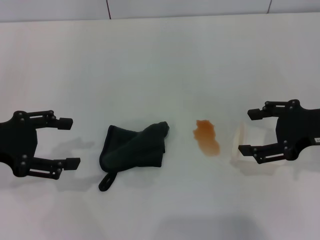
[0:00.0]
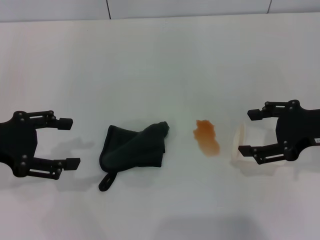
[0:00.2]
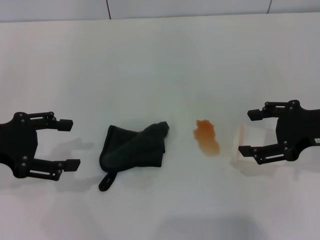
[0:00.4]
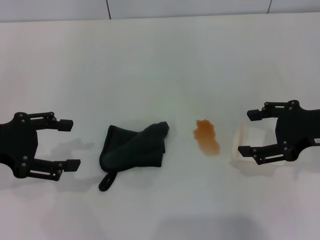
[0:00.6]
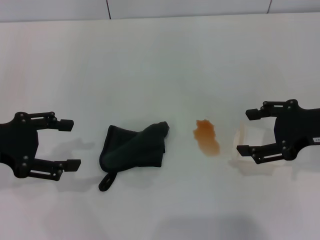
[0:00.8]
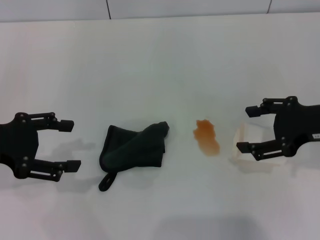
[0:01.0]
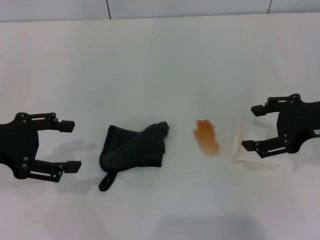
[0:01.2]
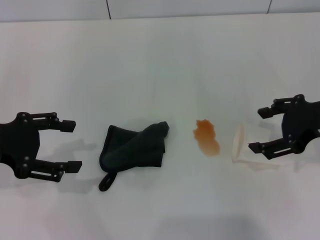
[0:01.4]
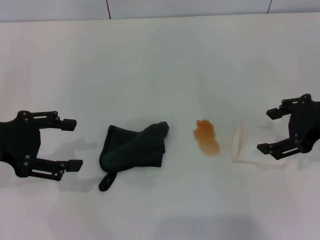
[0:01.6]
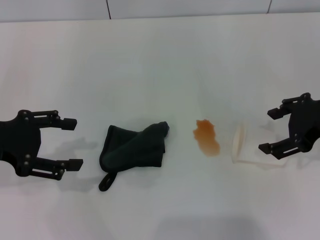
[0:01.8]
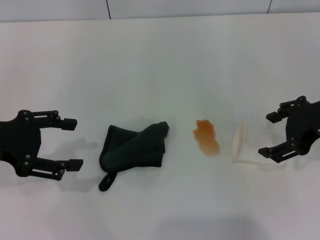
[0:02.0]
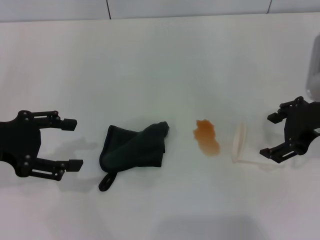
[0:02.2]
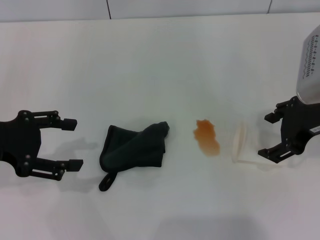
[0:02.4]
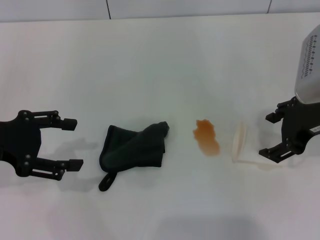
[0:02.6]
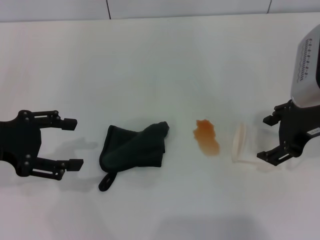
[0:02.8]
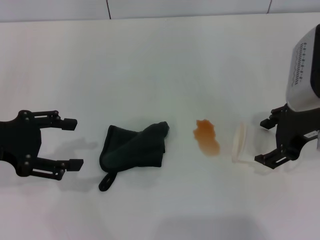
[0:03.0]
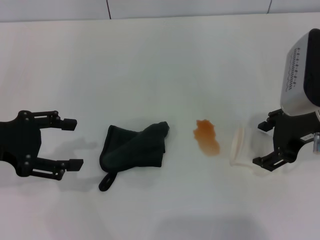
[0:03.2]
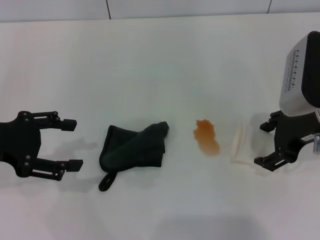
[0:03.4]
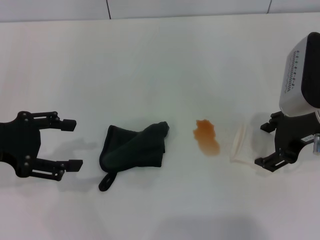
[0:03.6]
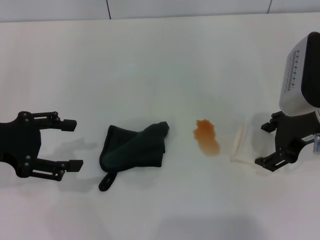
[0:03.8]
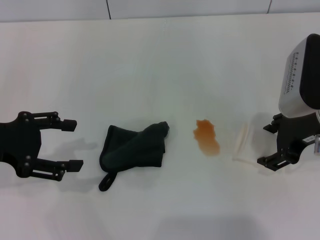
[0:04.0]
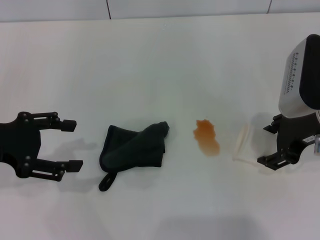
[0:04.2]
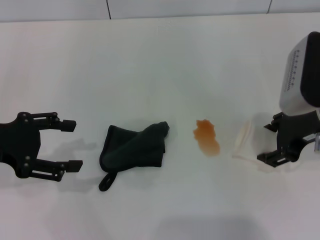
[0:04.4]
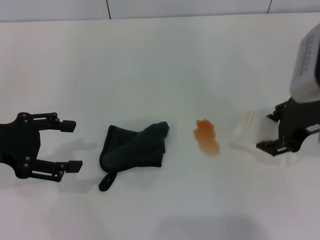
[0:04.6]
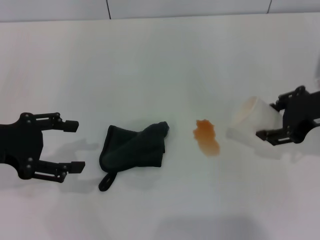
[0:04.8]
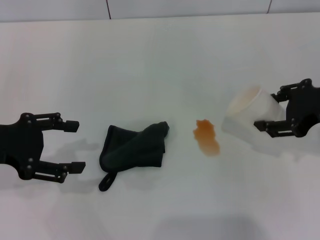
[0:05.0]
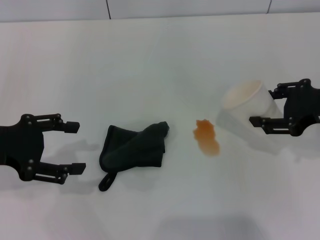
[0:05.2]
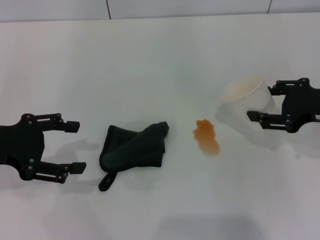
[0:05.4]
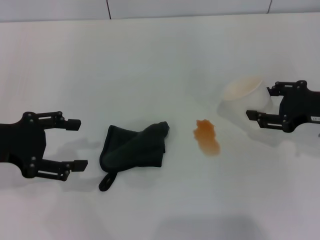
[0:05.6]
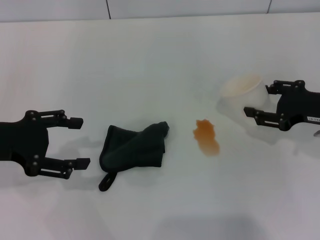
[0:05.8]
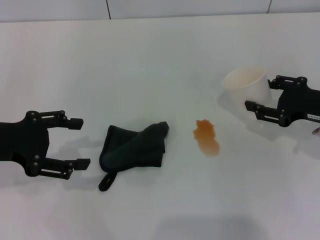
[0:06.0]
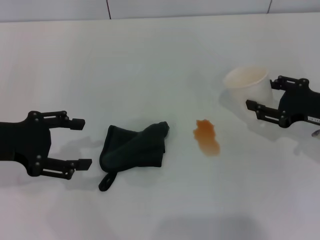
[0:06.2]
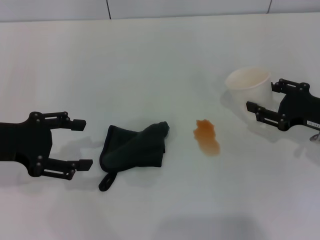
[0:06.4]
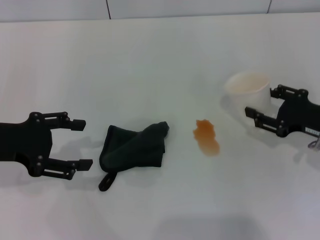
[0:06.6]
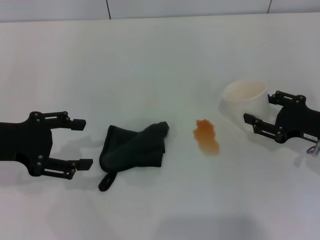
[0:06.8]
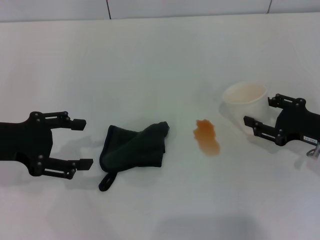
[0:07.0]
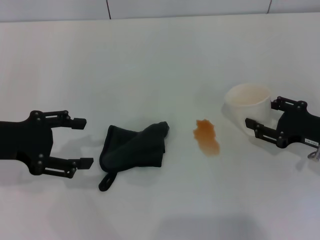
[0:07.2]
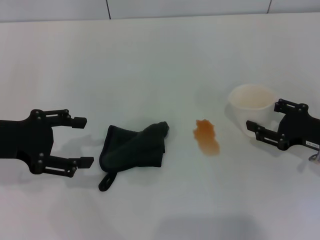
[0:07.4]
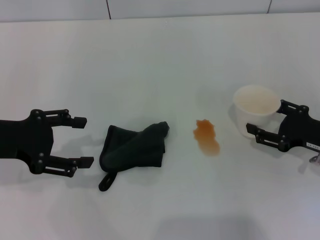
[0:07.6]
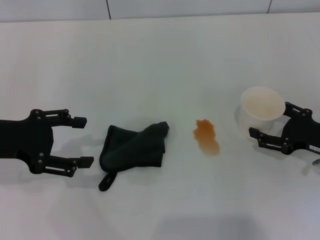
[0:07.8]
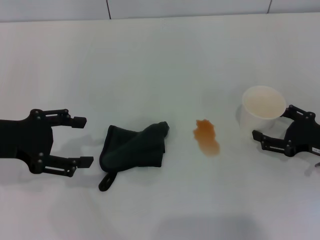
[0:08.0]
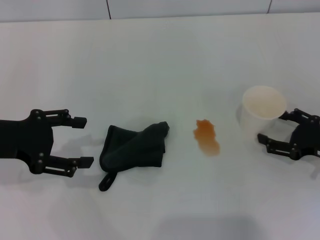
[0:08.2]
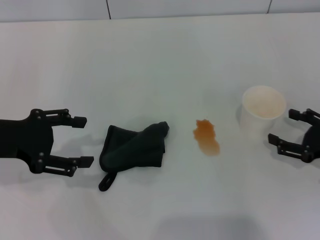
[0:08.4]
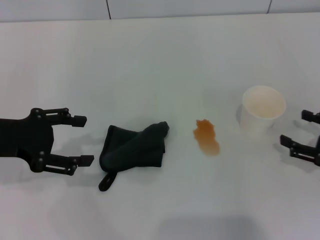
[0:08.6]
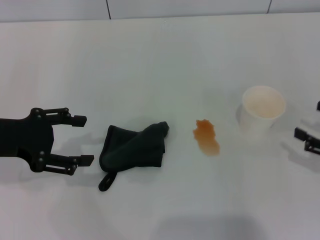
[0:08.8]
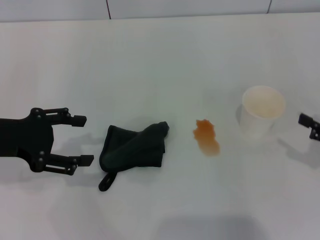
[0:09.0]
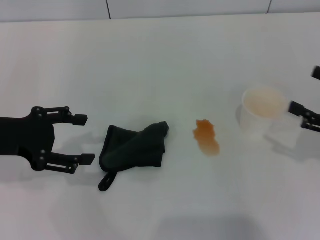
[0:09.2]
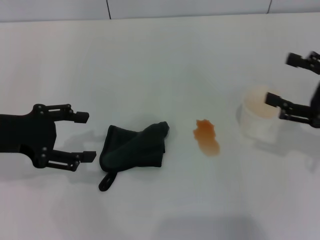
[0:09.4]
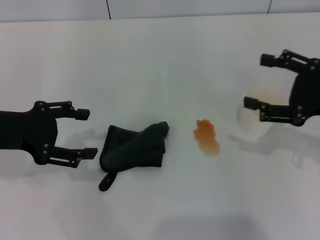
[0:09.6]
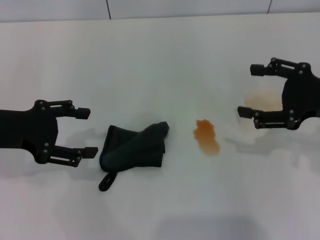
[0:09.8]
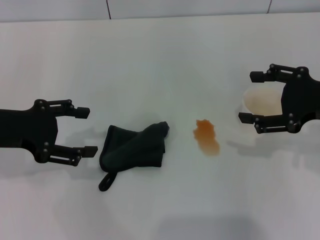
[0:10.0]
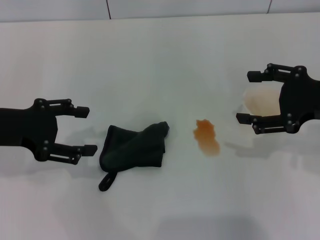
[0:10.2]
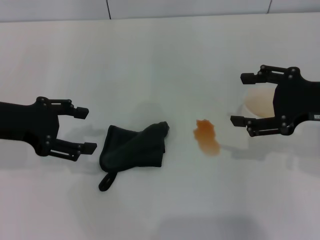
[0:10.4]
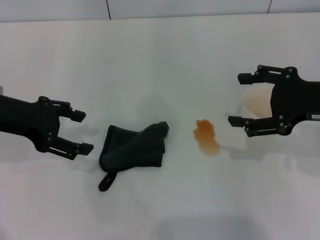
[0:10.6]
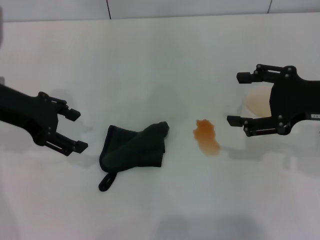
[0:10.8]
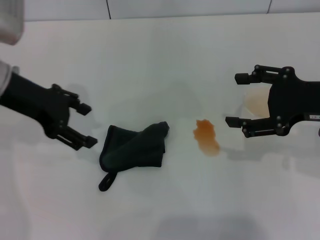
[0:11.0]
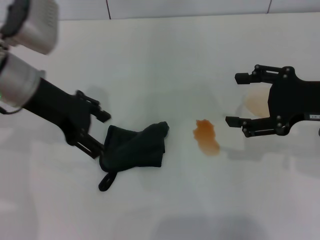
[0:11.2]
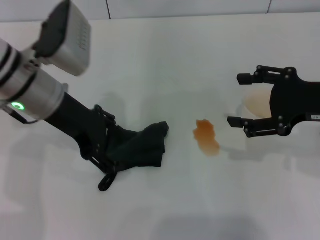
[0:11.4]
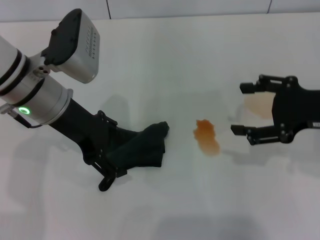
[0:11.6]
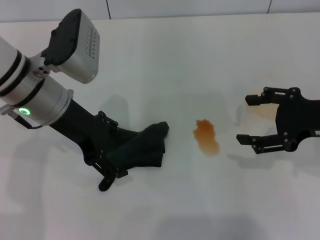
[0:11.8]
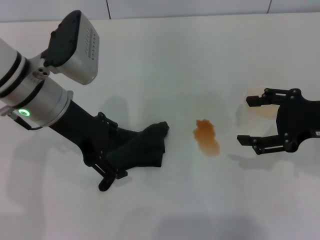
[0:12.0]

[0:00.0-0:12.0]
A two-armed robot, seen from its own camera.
Step, 0:00.0 to 0:04.0: Grasp the paper cup with the right gripper.
Step, 0:04.4 to 0:08.4: Stand the paper cup upright with the right gripper.
0:00.0 to 0:01.6: The grippers move only a little.
0:01.6 to 0:03.0: The grippers move only a little.
0:03.0 to 0:04.4: The right gripper closes its fingers.
0:04.4 to 0:06.0: The right gripper heads to the right and downward, covering some 10 cm.
0:06.0 to 0:07.6: The right gripper shifts some 5 cm downward.
0:07.6 to 0:09.0: The right gripper shifts about 10 cm backward, to the right and upward, and opens.
0:09.0 to 0:10.4: The right gripper heads to the left, upward and forward, covering some 15 cm.
0:10.4 to 0:12.0: The left gripper heads to the right, covering roughly 10 cm.

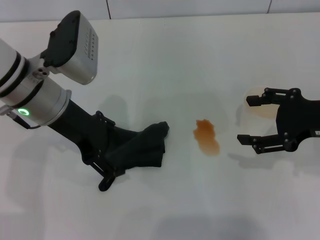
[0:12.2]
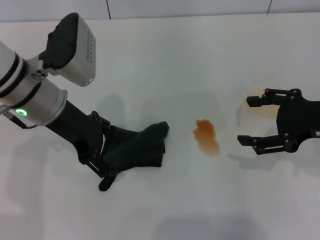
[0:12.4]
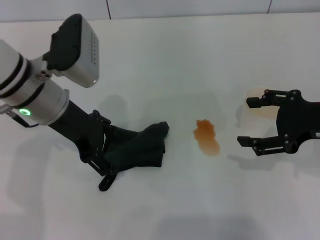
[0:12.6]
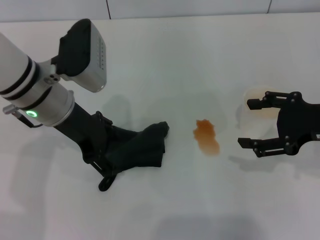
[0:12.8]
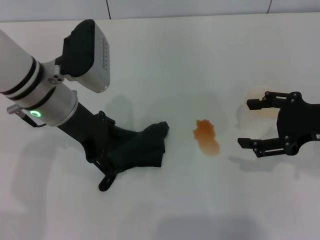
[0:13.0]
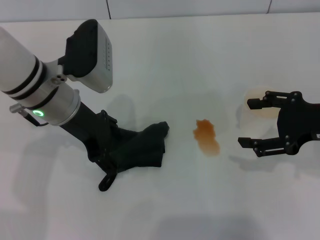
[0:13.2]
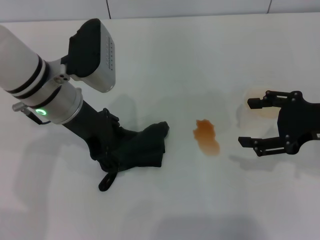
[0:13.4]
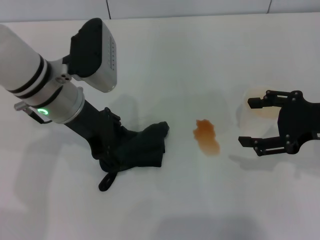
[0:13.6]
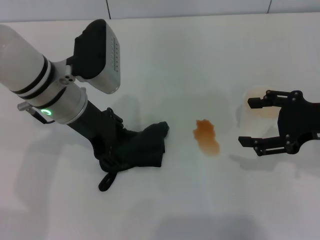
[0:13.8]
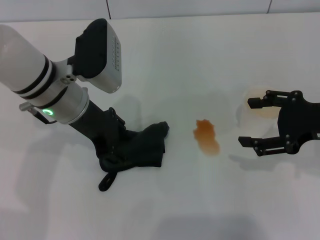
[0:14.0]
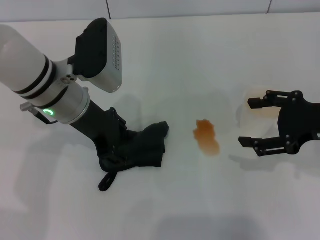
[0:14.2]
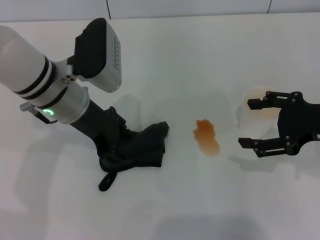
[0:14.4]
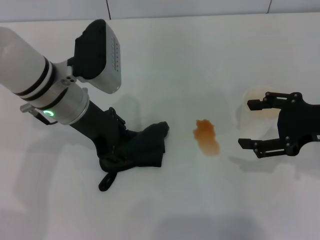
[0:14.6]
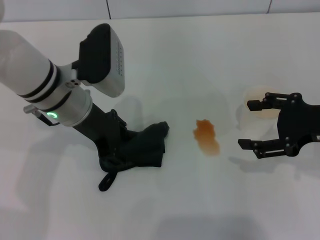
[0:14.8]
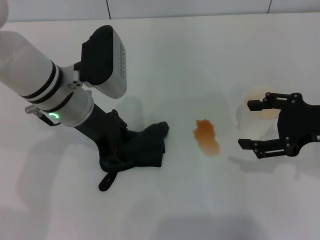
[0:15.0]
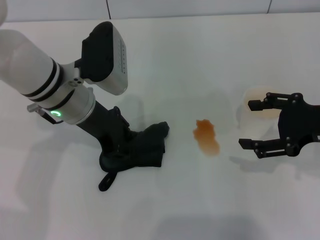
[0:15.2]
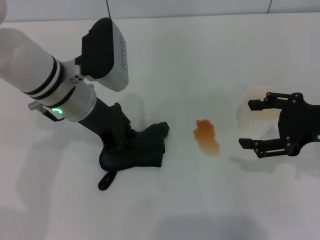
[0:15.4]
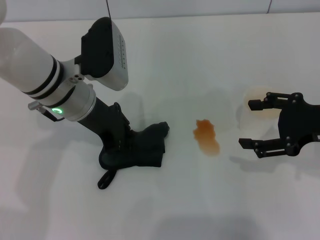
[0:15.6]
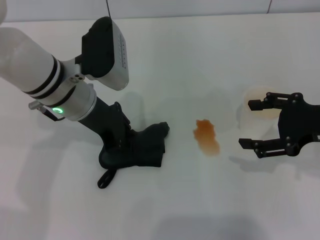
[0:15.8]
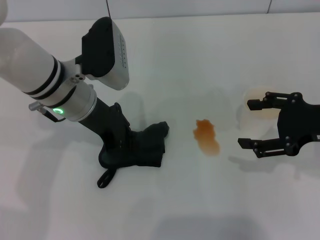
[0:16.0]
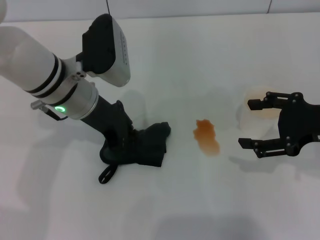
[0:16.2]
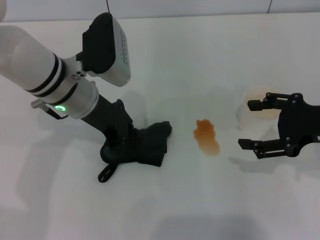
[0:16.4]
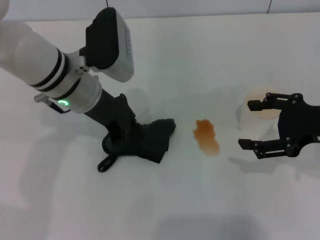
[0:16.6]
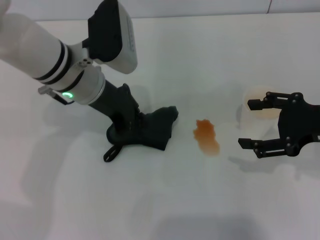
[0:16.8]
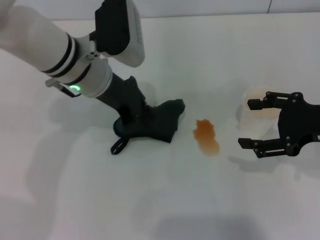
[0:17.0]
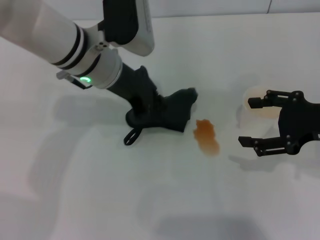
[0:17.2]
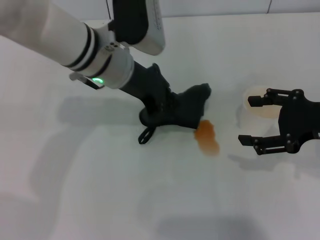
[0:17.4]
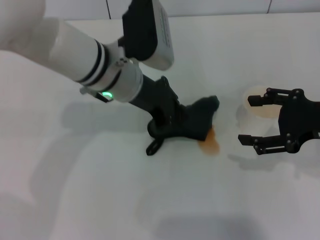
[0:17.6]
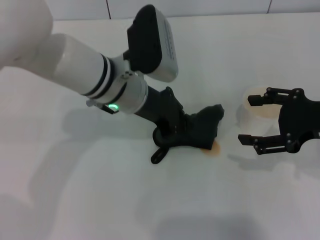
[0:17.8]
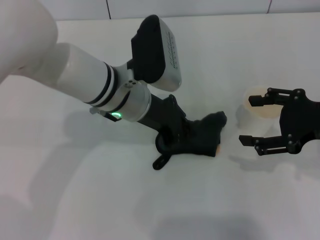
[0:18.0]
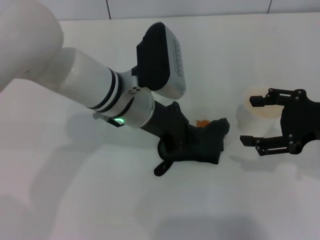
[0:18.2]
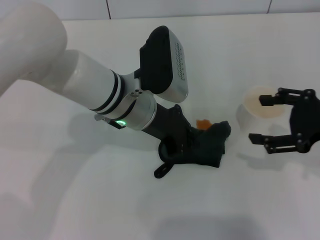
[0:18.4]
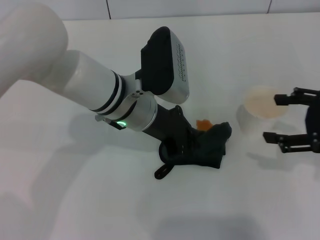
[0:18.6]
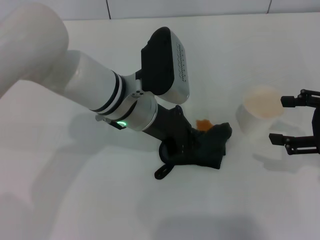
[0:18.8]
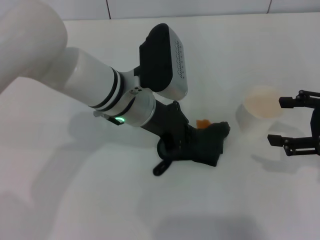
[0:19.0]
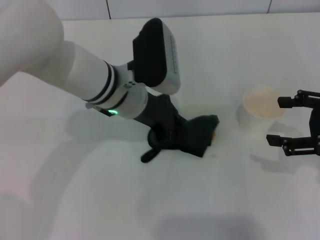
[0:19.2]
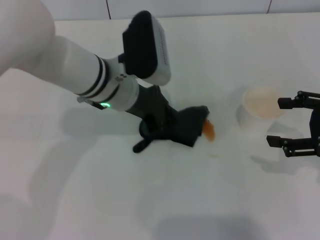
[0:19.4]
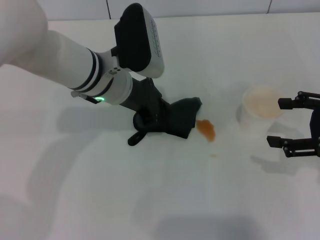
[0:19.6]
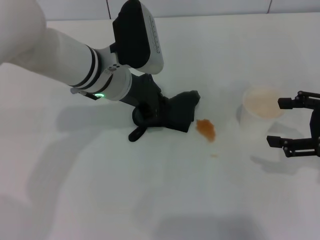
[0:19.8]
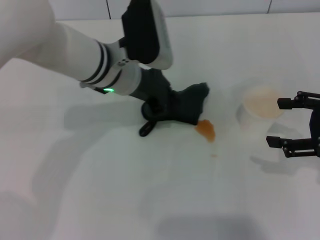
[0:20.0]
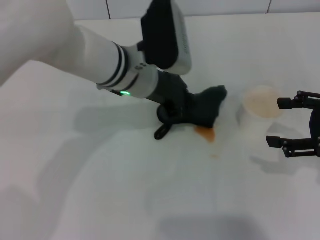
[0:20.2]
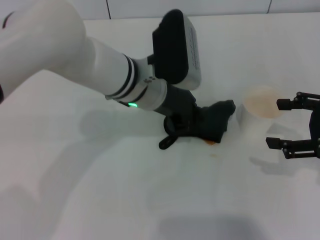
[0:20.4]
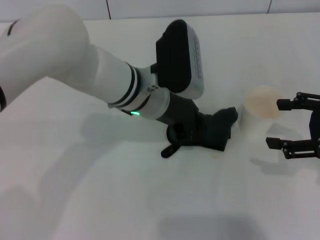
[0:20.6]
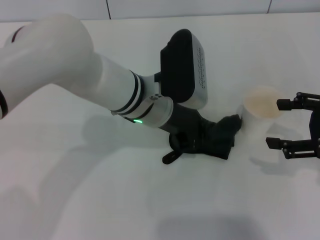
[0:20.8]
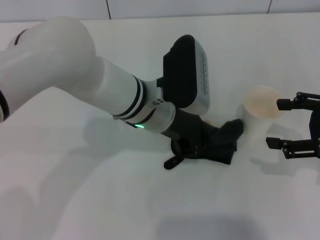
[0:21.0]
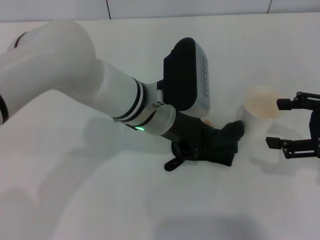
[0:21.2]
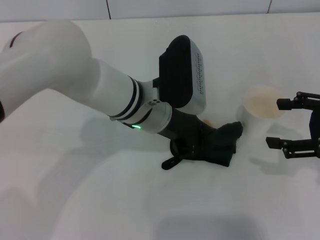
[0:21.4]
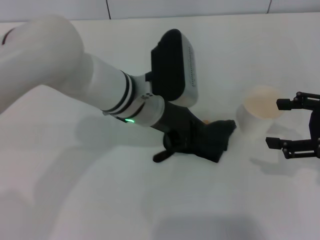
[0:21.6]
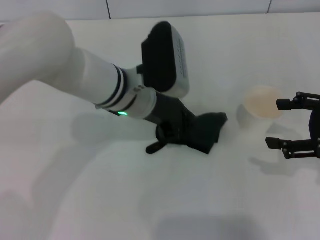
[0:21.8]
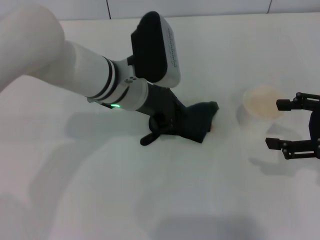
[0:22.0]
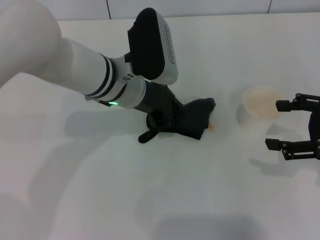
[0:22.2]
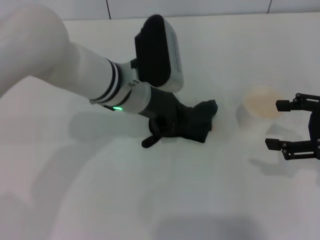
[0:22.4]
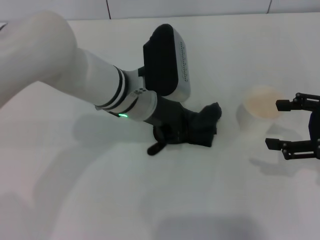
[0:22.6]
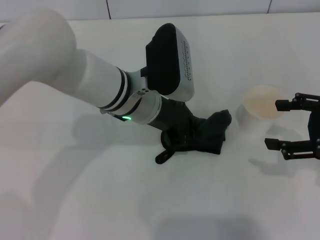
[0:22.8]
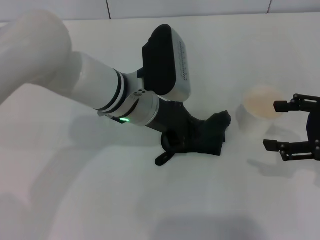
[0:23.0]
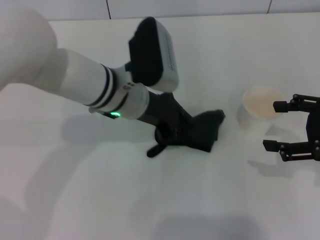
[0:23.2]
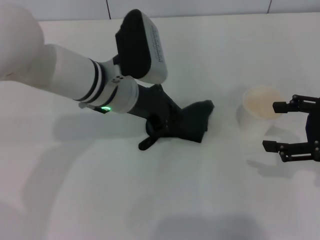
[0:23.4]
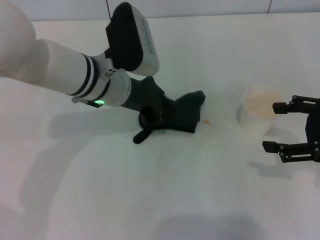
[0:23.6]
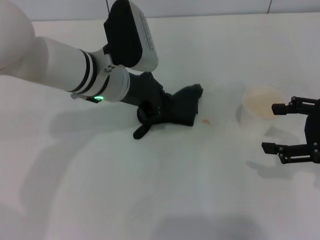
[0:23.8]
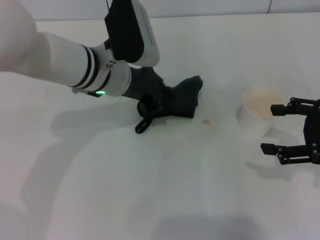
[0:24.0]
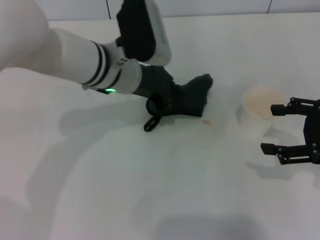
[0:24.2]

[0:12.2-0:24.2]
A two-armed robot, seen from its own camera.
Step, 0:12.2 to 0:16.2: Grasp the rag with the left gripper.
0:12.2 to 0:13.8: The grippers stay close to where they were, moving slightly.
0:13.8 to 0:15.2: Both grippers stay put.
0:15.2 to 0:16.6: The left gripper closes.
0:16.6 to 0:18.2: The left gripper shifts approximately 5 cm to the right.
0:19.8 to 0:21.2: The left gripper heads to the right, covering roughly 5 cm.
0:21.2 to 0:22.6: The grippers move only a little.
0:22.6 to 0:24.2: The grippers move only a little.
